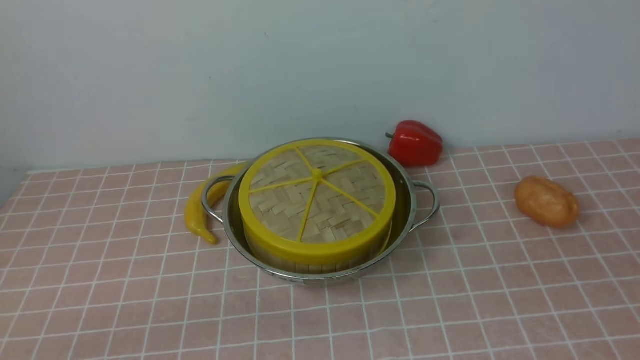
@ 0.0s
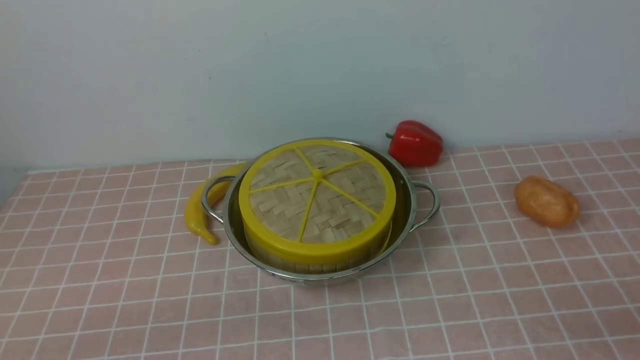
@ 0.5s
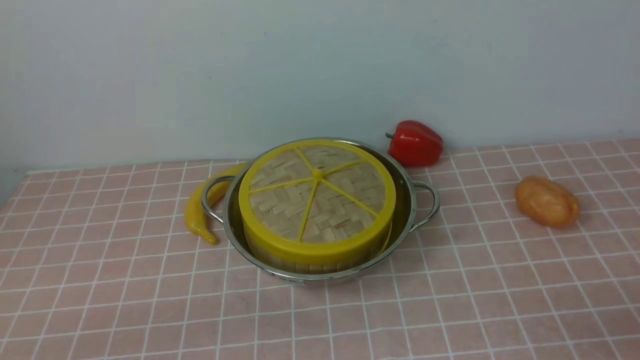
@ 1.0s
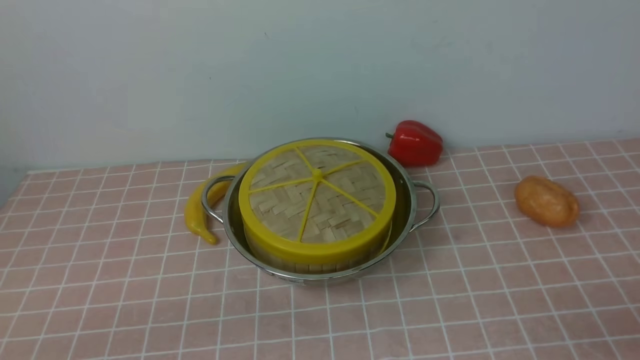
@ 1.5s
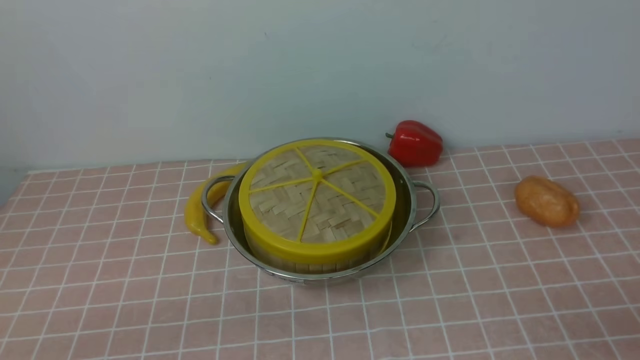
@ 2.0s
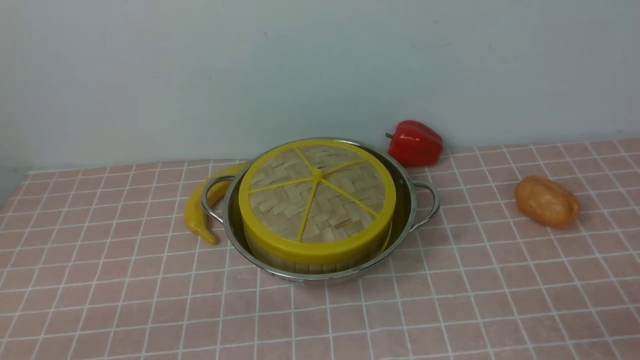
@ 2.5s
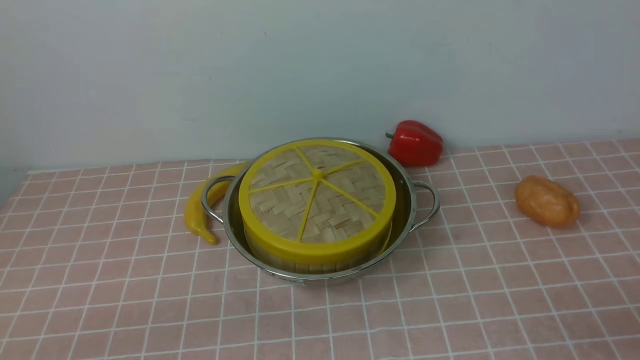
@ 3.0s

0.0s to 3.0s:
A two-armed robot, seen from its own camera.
Task of the whole recording: place the steamer in the pot on the pink tablecloth, and put the lid on the steamer.
1.5s to 3.0s: The two grippers keep their place.
